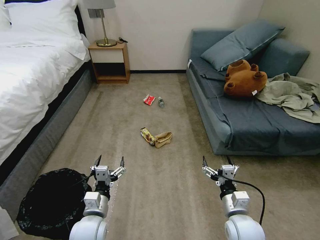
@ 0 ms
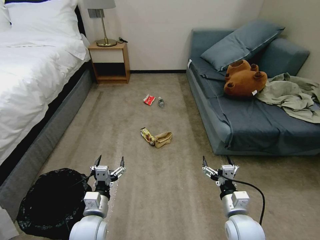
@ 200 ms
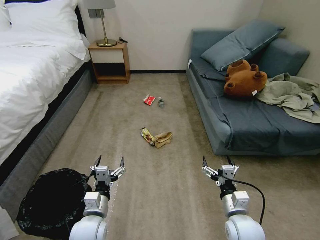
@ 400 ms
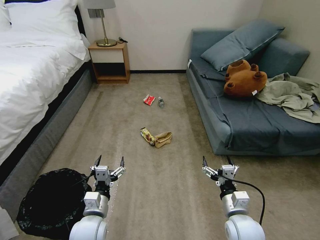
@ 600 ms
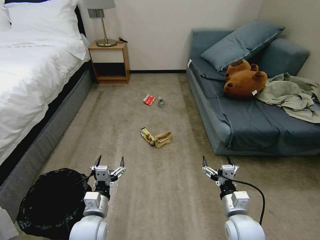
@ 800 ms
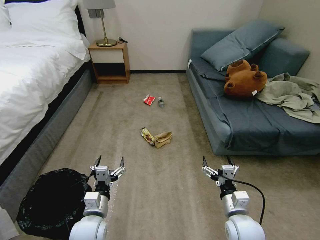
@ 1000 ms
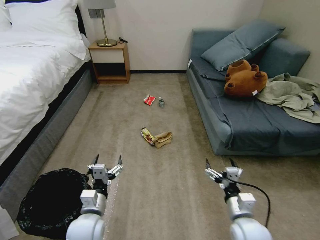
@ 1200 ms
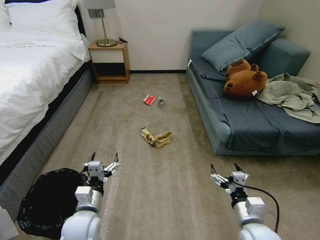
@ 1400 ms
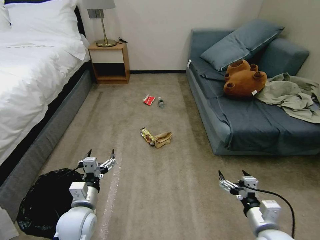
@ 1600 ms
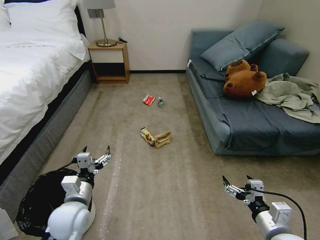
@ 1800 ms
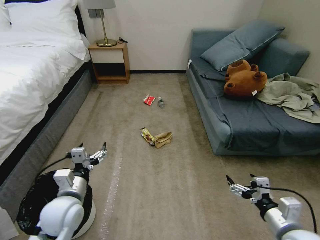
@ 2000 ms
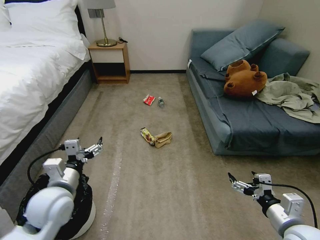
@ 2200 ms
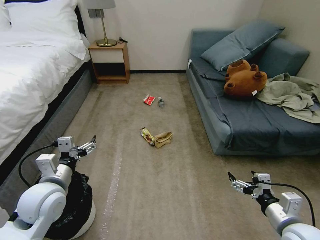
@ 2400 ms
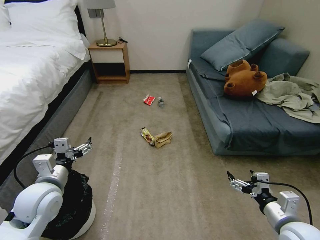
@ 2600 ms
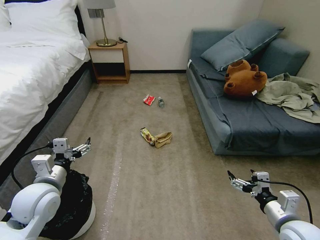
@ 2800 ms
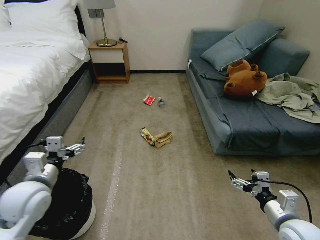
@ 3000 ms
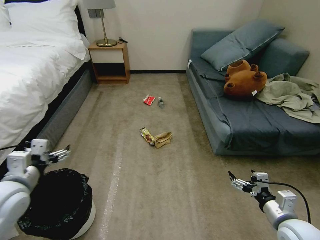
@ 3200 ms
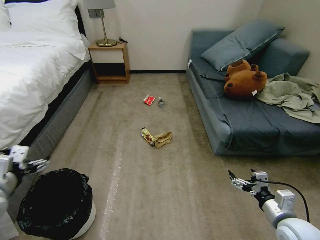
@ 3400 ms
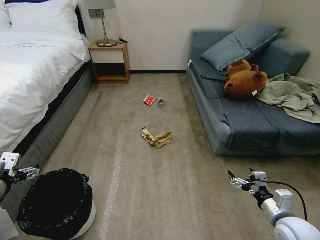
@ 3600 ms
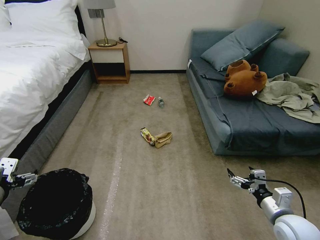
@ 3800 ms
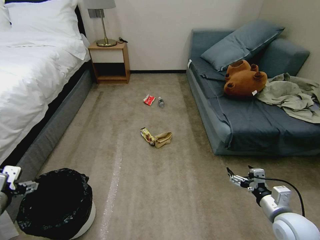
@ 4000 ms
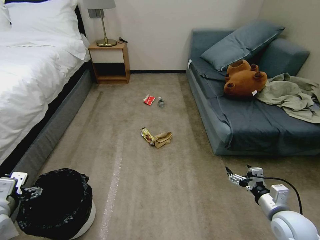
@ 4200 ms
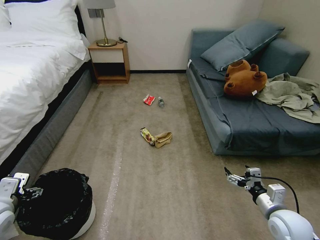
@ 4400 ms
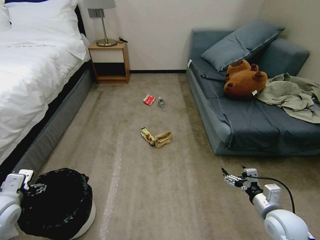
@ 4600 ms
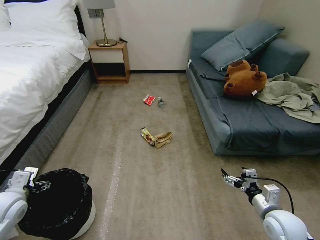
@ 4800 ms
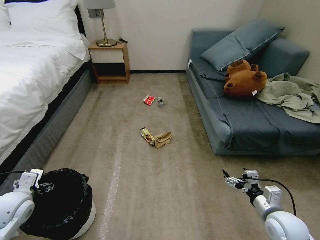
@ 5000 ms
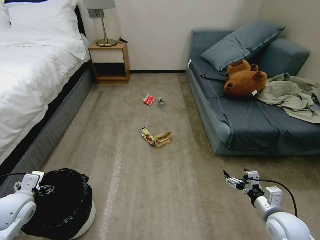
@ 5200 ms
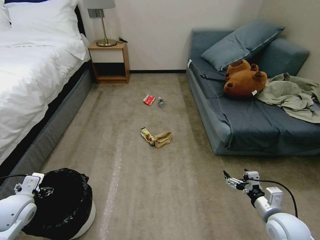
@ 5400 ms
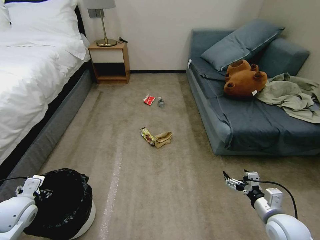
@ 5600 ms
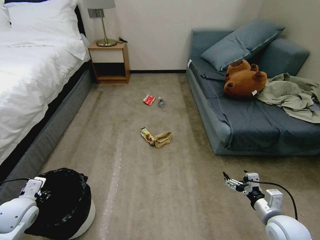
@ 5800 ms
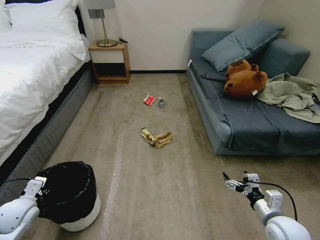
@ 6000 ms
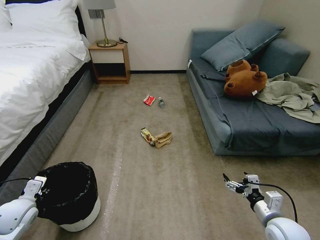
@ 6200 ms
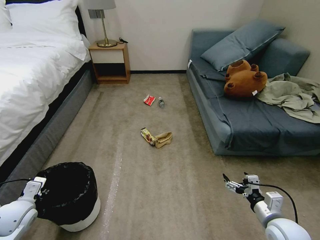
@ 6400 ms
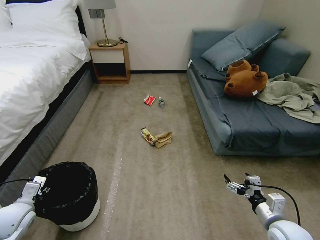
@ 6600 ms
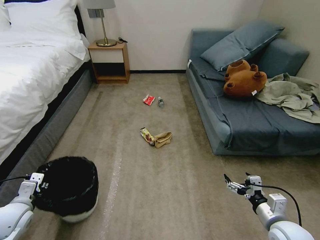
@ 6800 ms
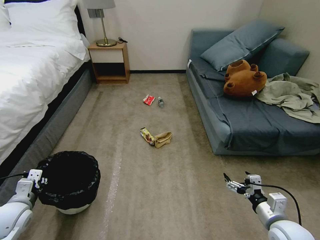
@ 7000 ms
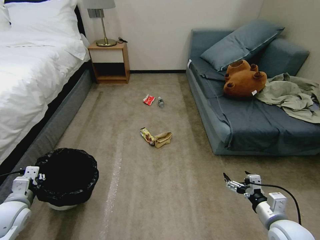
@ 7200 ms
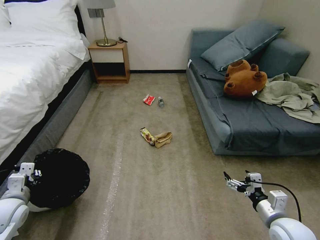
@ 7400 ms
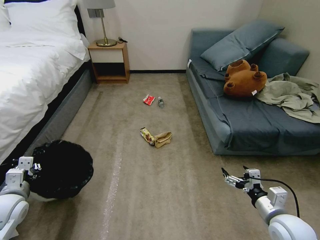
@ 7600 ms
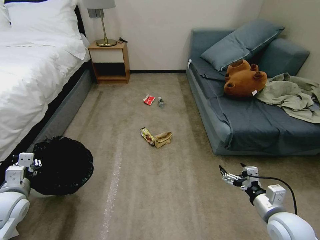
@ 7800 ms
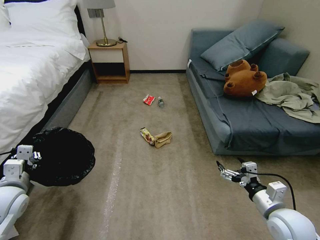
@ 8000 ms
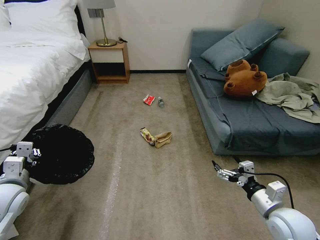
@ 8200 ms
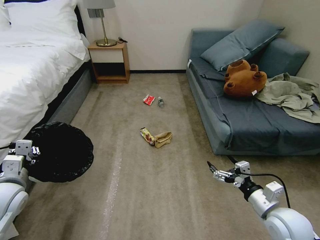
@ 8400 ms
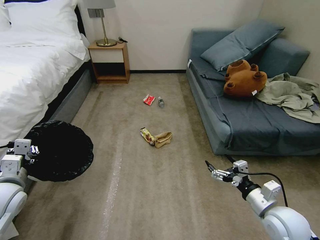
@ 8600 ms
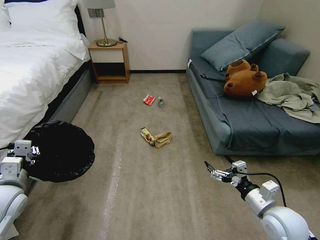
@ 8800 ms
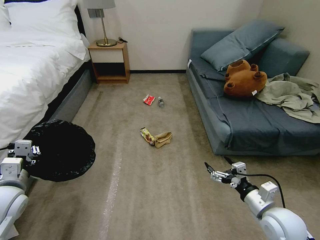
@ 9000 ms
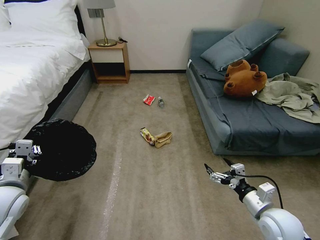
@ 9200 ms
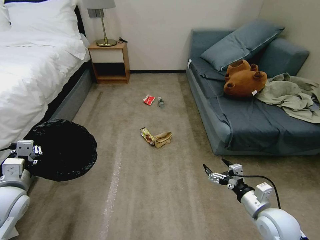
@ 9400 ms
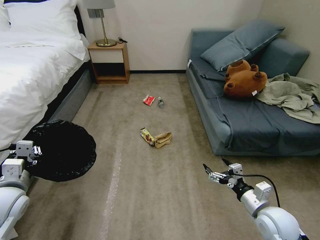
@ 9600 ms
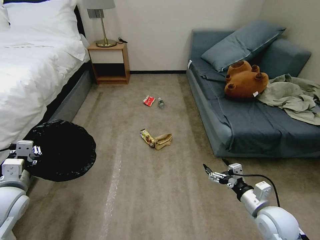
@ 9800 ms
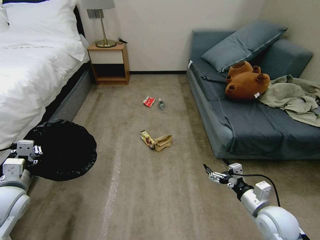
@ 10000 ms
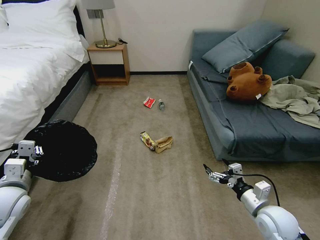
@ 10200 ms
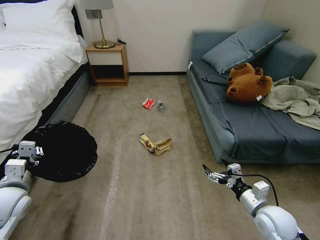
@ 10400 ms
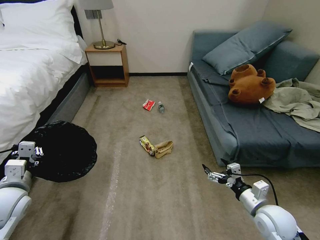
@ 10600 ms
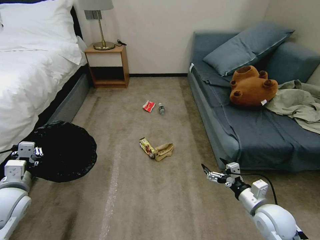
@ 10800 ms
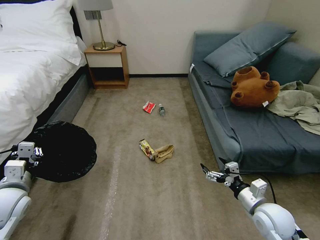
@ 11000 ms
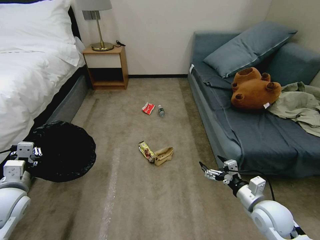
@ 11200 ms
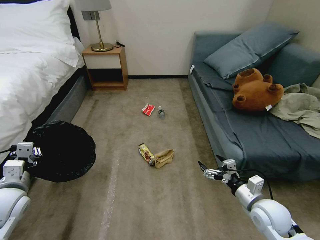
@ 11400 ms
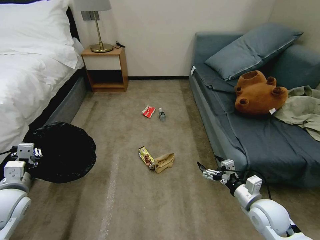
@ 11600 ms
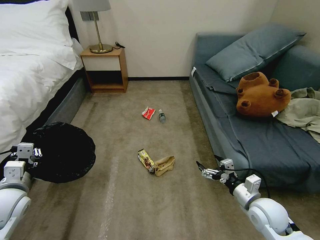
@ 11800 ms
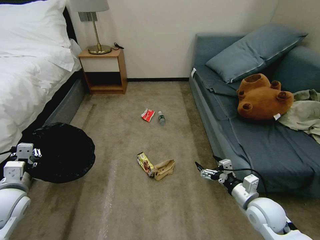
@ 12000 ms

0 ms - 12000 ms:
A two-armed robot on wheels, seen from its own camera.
Task of the whole recording: Pick up the trash bin, then pick up the garbage on the floor and place it into the trash bin.
1600 ms - 3000 ms: The left gripper goes roughly 15 cm upward and to the left, while the right gripper travels to the right by some 5 cm.
3000 ms - 4400 ms: The left gripper is displaced to the left by some 10 cm, while the right gripper ends up some 5 cm from where it was.
4400 ms - 6000 ms: The left gripper goes approximately 10 cm downward, and closes its fingers.
6000 ms - 7600 ms: The left gripper closes up.
7600 ms - 9000 ms: The left gripper heads upward, covering approximately 5 cm.
9000 ms - 10400 ms: The grippers stay close to where they were, moving slightly.

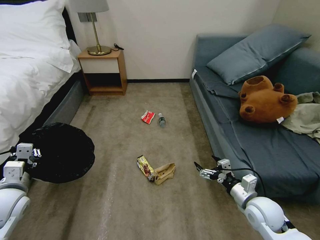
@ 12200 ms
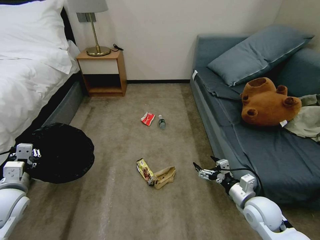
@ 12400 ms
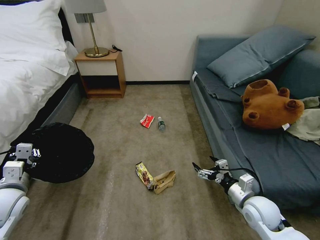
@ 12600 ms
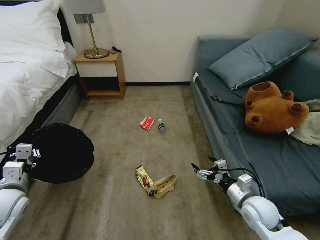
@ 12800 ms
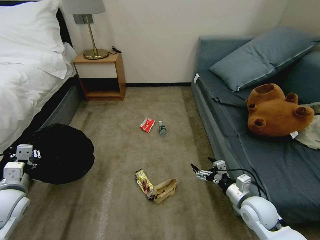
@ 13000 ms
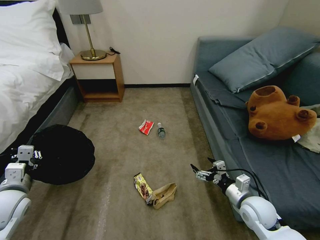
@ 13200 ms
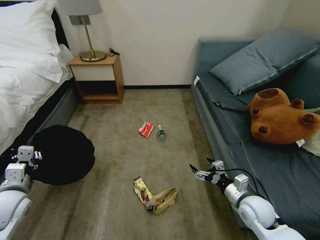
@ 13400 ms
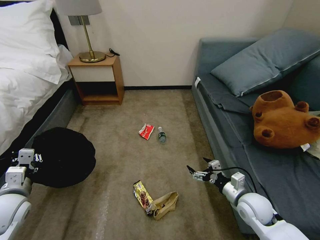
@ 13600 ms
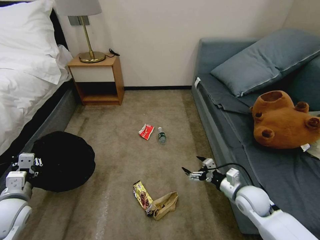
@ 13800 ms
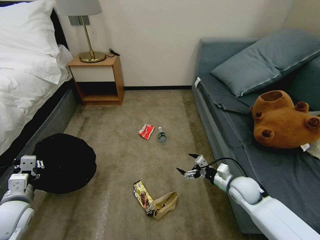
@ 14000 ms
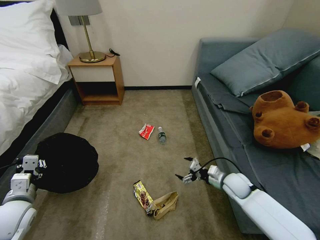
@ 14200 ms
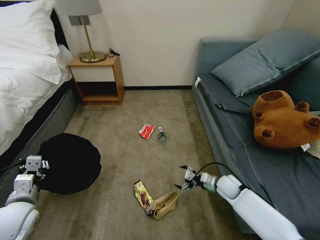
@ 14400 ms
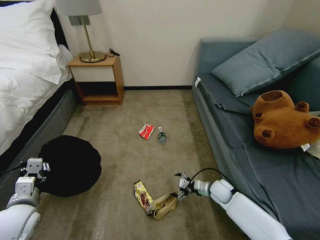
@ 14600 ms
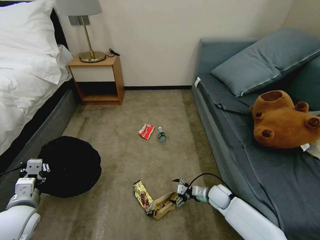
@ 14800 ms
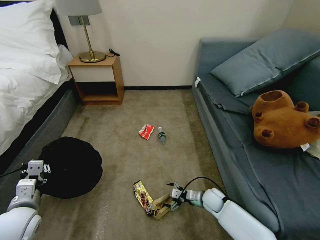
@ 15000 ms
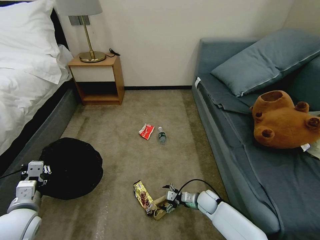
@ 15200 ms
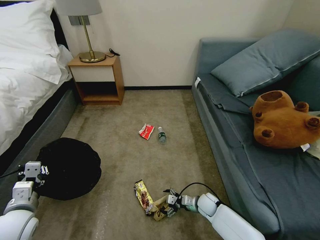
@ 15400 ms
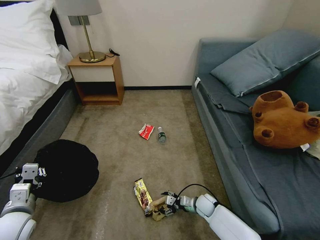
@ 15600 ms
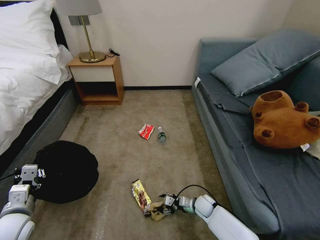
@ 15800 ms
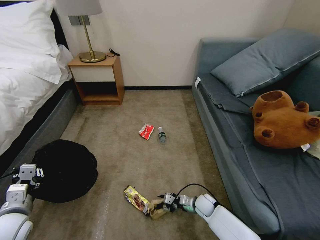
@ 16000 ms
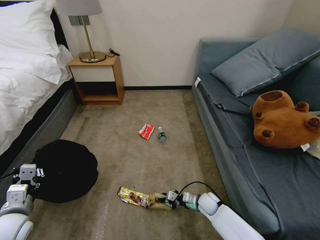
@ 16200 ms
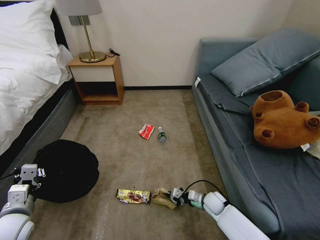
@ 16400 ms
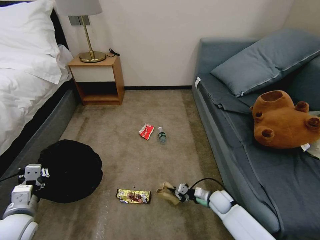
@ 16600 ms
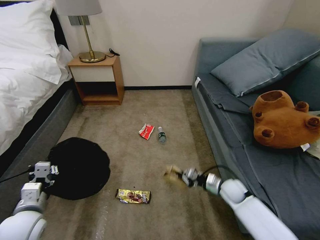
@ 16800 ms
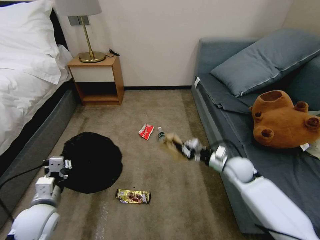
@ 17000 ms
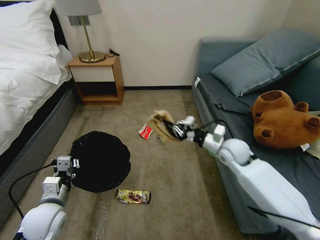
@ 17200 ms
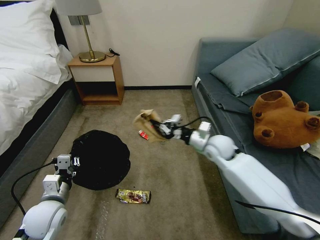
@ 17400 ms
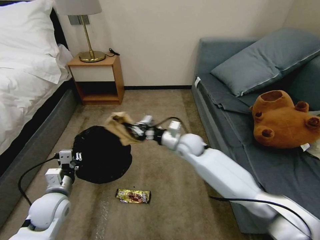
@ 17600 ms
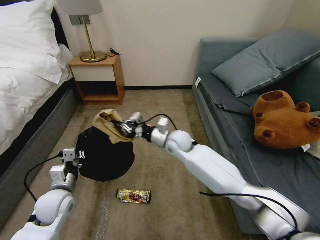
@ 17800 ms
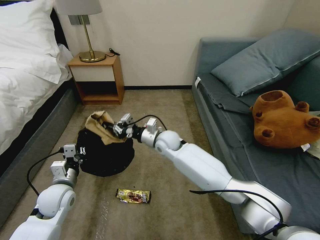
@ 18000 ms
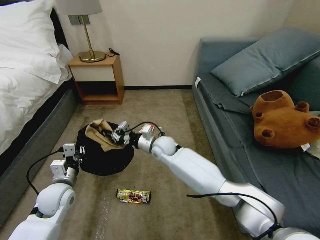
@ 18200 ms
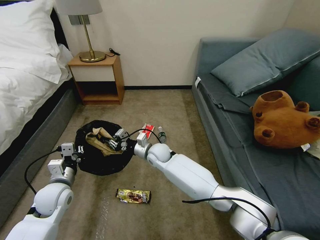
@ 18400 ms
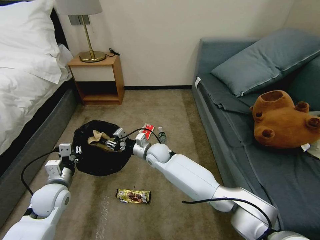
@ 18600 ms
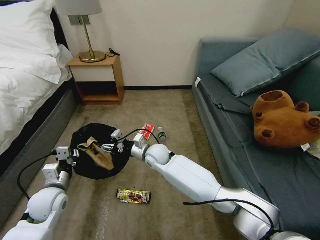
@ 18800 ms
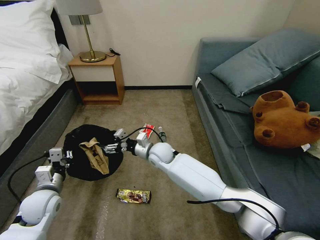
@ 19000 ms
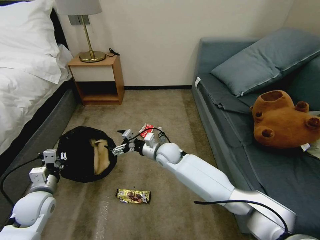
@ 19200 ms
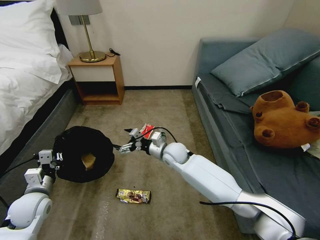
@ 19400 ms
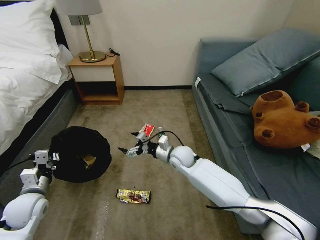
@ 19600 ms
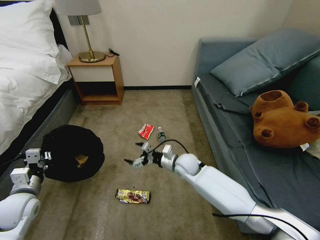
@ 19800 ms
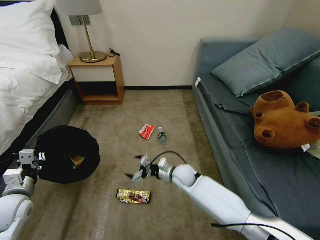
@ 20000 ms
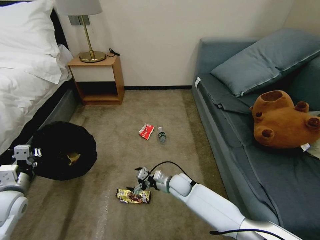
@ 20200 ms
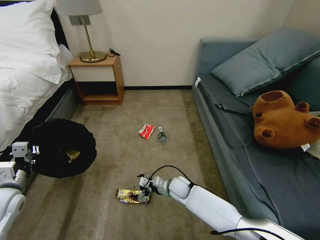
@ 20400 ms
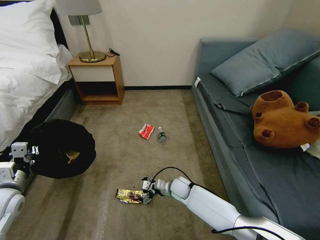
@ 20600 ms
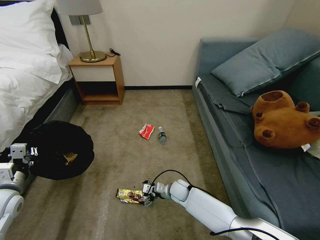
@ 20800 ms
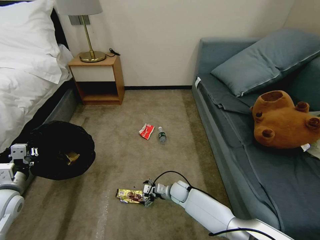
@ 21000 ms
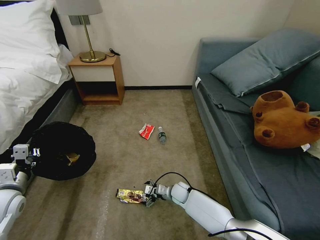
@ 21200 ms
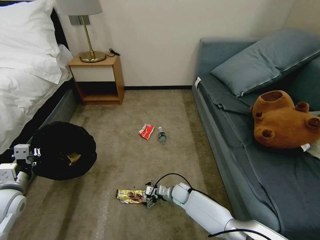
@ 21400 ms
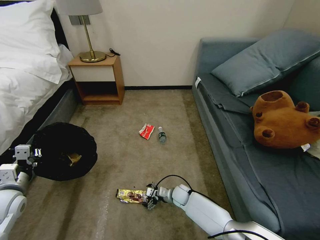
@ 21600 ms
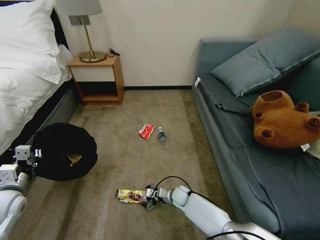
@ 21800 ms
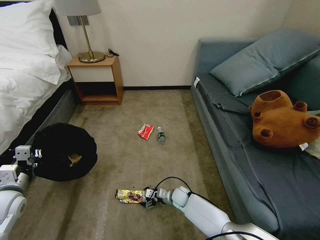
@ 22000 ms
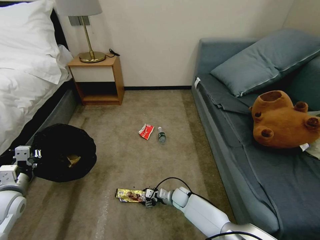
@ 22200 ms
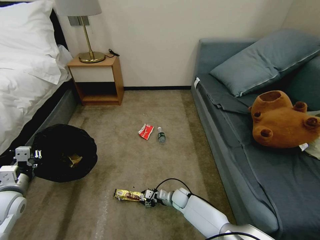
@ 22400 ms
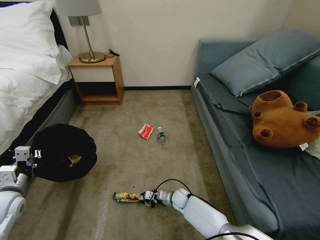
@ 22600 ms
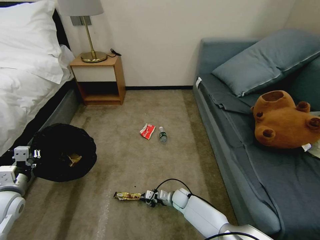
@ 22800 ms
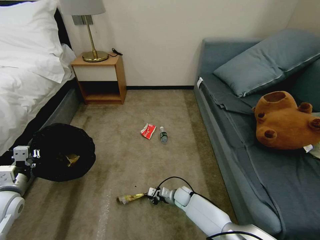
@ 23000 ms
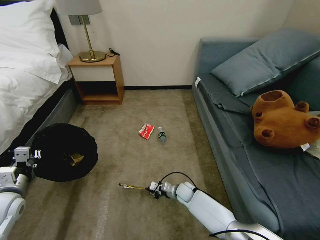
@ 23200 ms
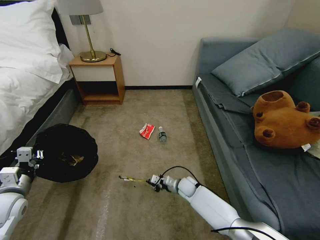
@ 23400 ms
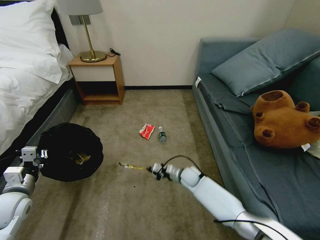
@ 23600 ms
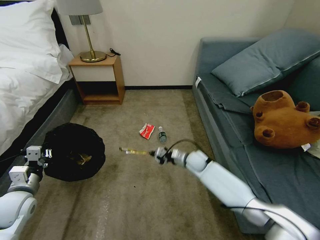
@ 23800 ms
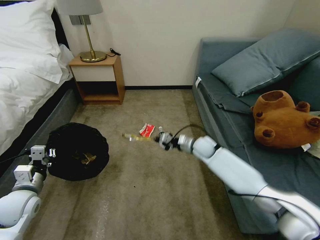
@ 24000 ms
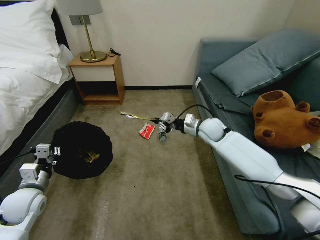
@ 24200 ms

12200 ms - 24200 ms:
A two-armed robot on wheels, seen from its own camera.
Task of the whole recording: Pick up the trash bin, then pick up the garbage on the floor and place it into the trash bin.
13800 ms - 15200 ms: The right gripper moves downward and to the left, some 20 cm.
15200 ms - 16600 ms: The right gripper travels to the right by some 5 cm, and closes.
16600 ms - 18200 ms: The right gripper heads to the left, upward and forward, covering some 35 cm; the left gripper travels forward and to the right by some 10 cm.
18200 ms - 19800 ms: The right gripper moves to the right and backward, roughly 10 cm, and opens; the left gripper goes about 10 cm to the left.
19800 ms - 21200 ms: The right gripper is displaced downward by approximately 15 cm.
21200 ms - 22600 ms: The right gripper closes its fingers.
22600 ms - 24200 ms: The right gripper shifts roughly 35 cm upward and forward. The left gripper travels to the right by roughly 5 cm.
